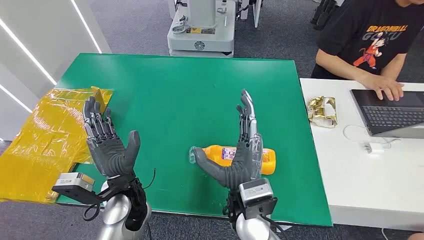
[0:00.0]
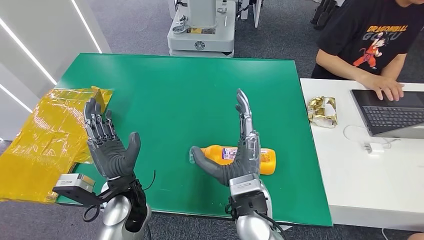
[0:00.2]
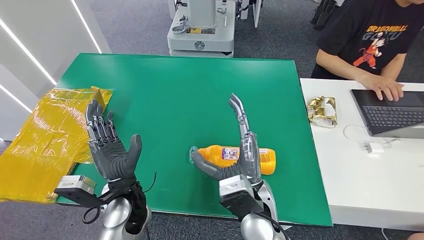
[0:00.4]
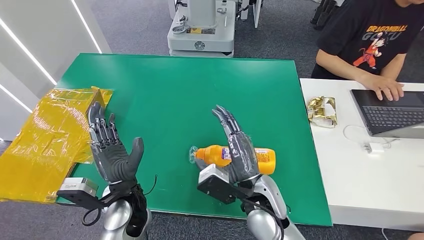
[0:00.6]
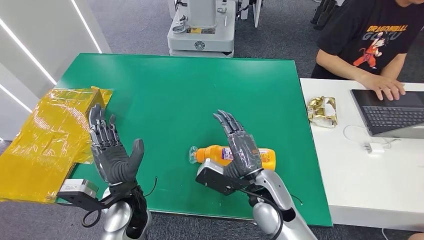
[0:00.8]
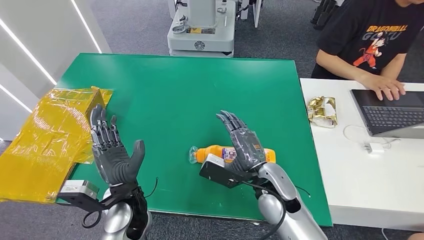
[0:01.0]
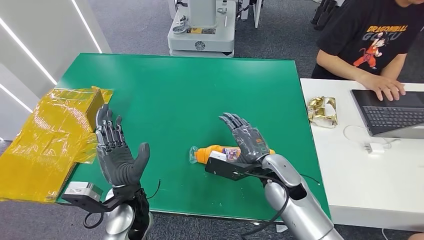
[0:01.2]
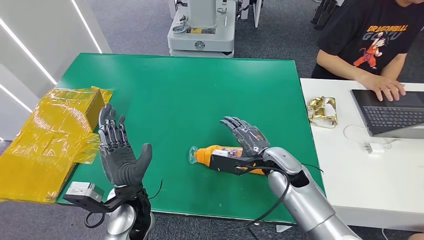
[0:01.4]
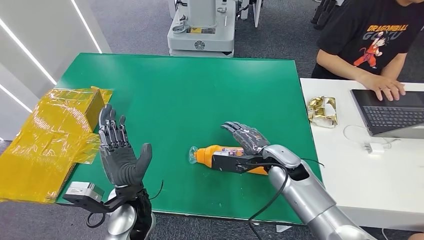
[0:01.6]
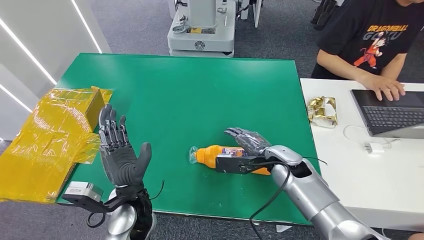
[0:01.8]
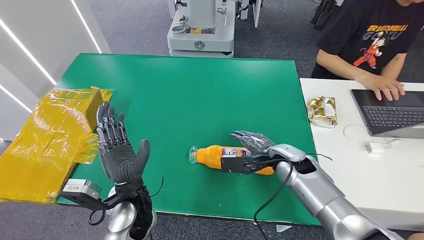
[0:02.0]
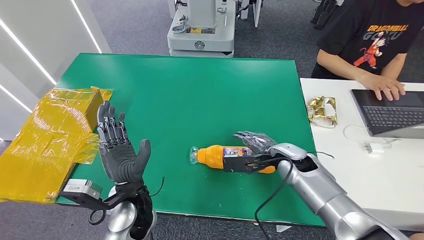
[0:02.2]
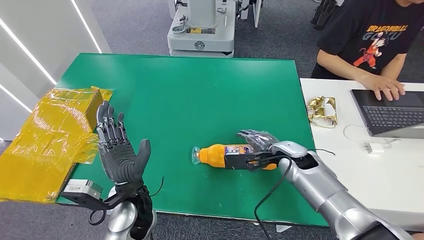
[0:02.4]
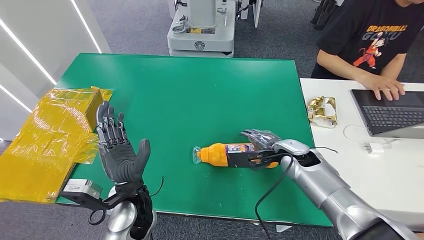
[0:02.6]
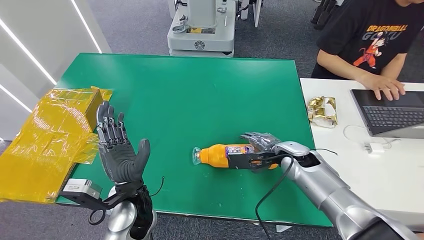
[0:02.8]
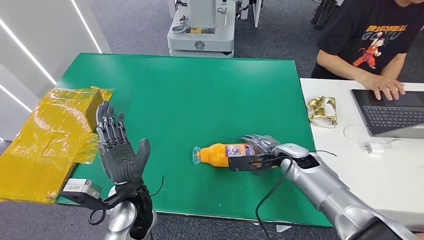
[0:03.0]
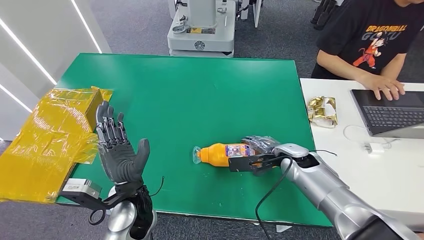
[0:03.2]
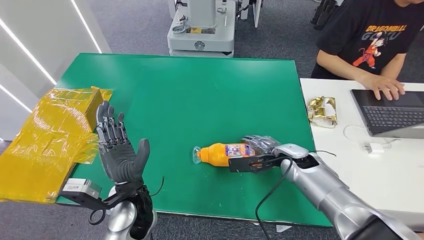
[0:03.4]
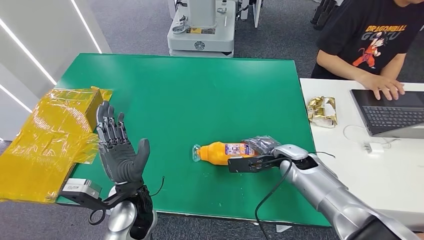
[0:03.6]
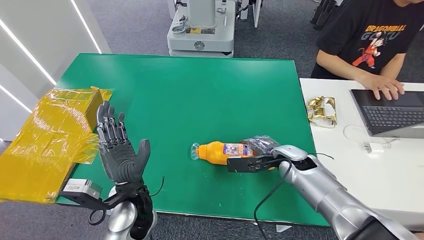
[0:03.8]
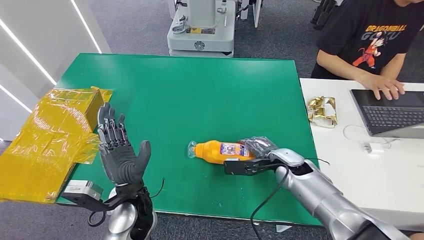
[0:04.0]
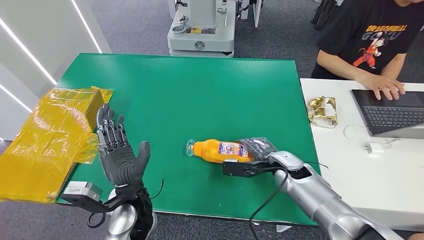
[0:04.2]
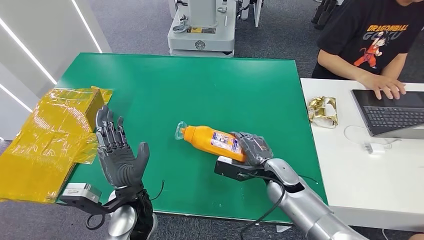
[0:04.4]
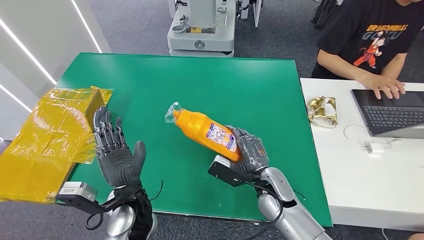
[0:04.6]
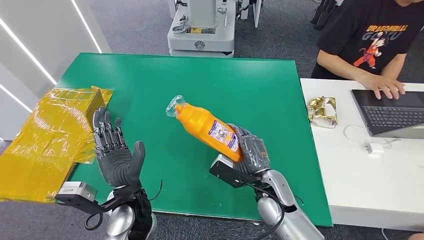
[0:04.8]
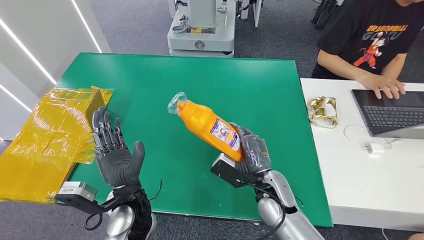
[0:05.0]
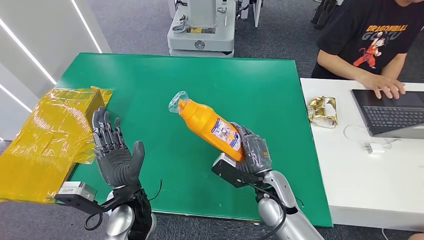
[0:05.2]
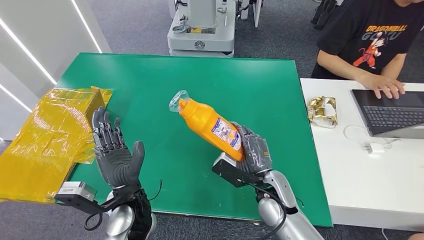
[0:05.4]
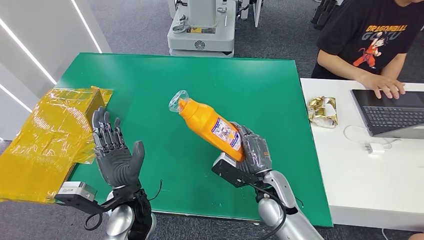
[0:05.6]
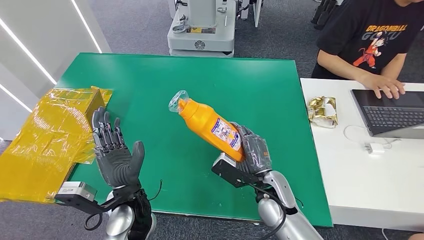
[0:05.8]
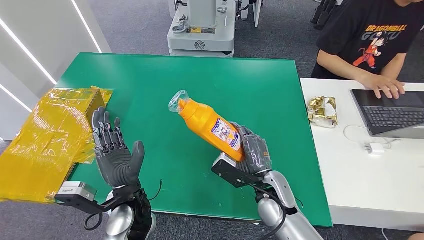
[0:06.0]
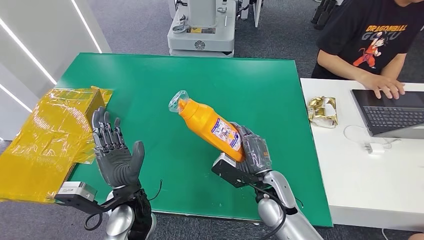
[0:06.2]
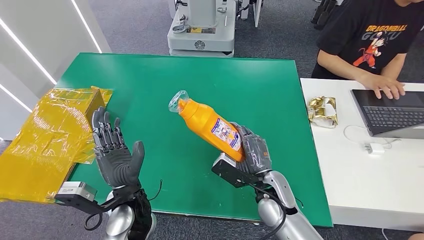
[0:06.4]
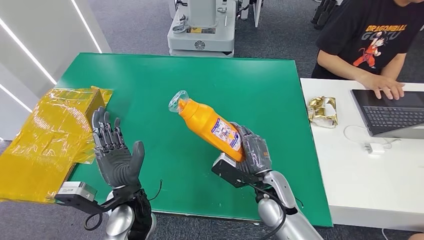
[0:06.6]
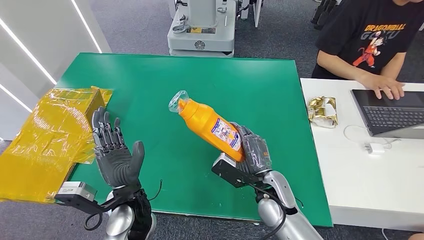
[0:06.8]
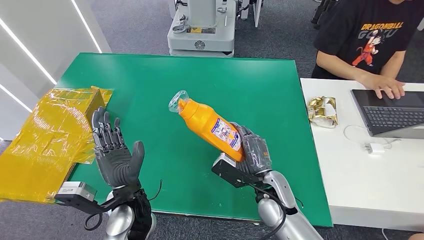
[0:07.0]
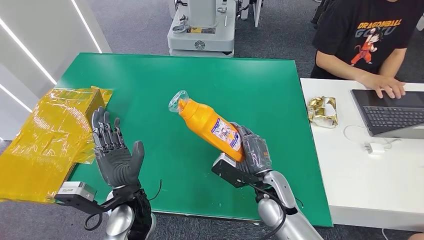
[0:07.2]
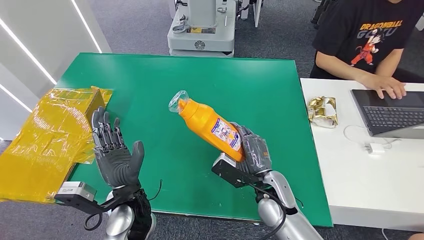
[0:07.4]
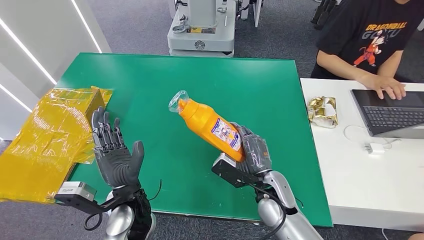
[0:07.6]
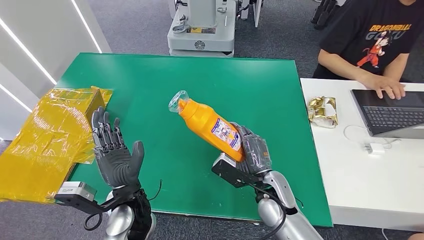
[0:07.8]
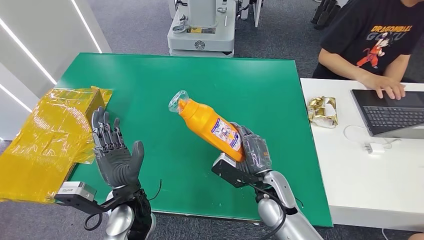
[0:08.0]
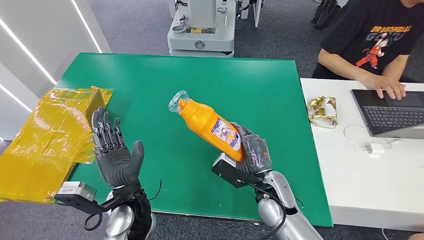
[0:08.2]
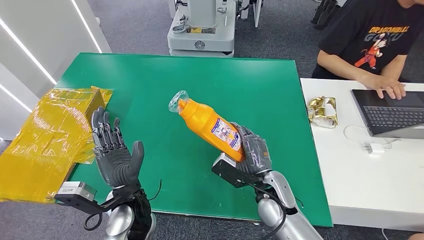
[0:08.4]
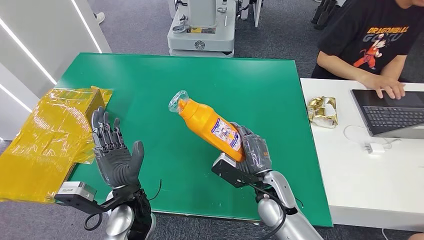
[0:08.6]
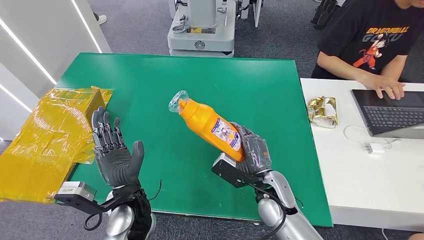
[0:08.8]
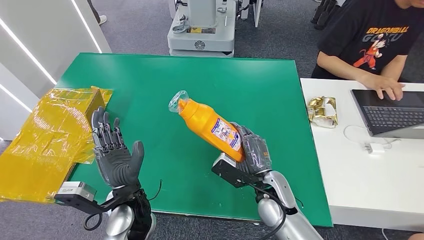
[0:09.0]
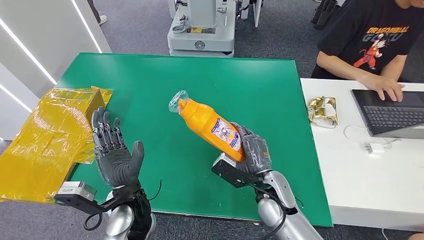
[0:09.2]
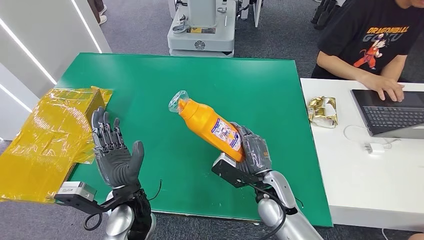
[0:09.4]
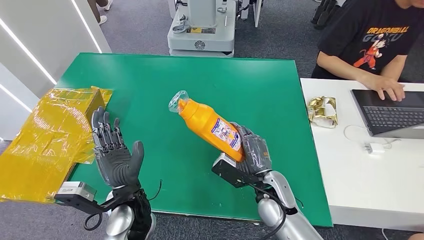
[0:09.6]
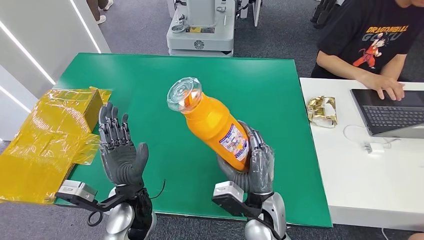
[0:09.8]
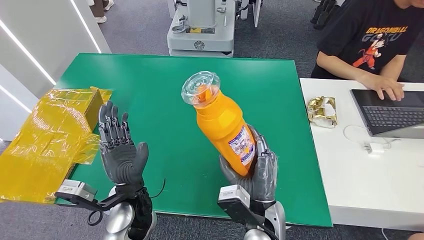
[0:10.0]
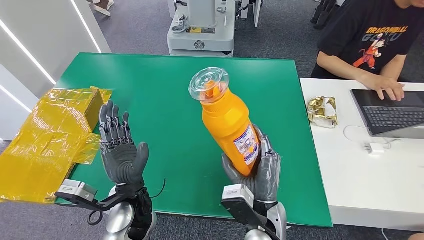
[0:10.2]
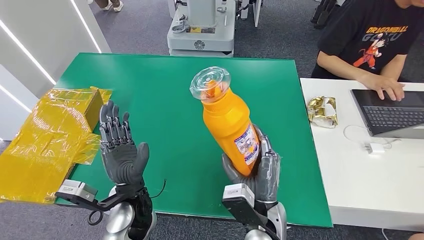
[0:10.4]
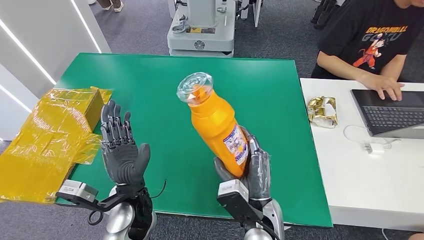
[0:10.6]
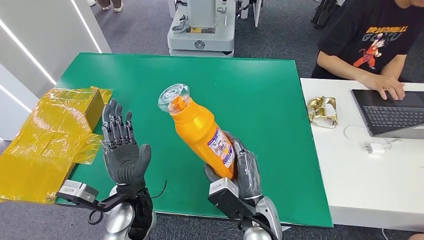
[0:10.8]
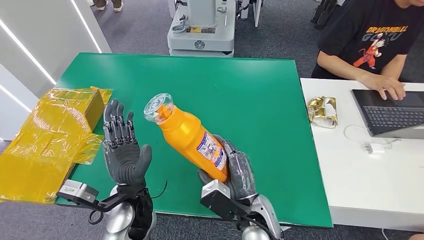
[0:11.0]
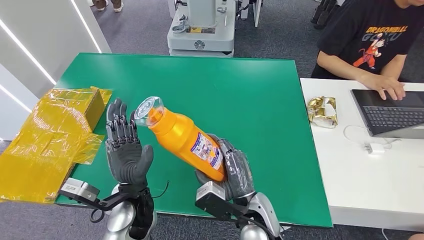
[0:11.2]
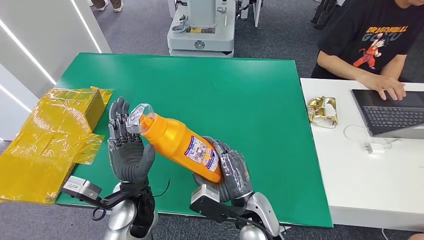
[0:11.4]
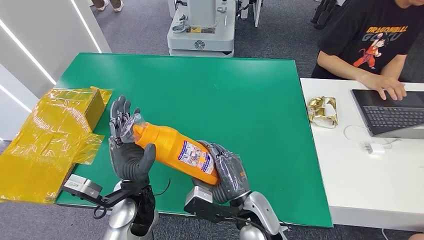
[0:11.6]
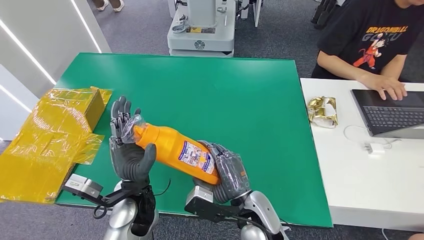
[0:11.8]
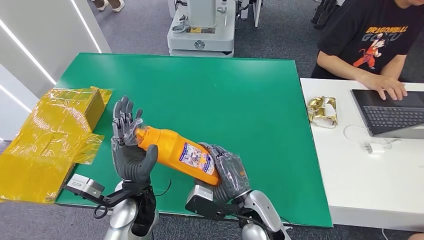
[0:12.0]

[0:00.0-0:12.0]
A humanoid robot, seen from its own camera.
Step, 0.0 to 10.2 s: Pick up the bottle from the table.
1.6 to 3.0 s: The right hand changes place by roughly 5 cm.
3.0 to 4.4 s: The right hand moves roughly 5 cm.
4.4 to 6.0 s: The right hand shifts by roughly 5 cm.
6.0 to 9.0 s: The two hands keep their place.
9.0 to 10.4 s: The right hand shifts approximately 10 cm backward.

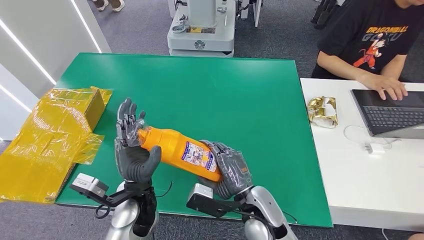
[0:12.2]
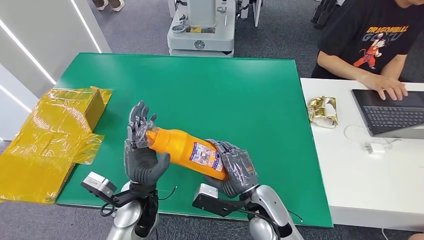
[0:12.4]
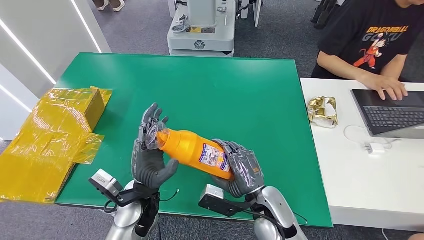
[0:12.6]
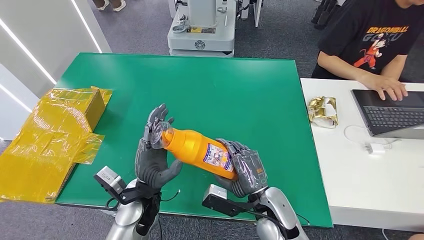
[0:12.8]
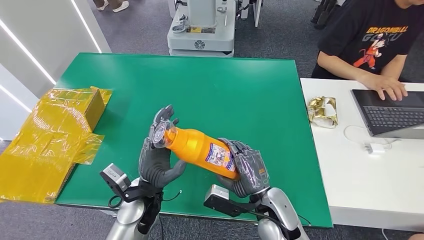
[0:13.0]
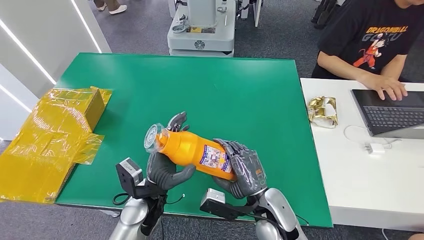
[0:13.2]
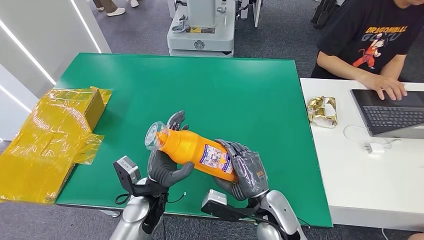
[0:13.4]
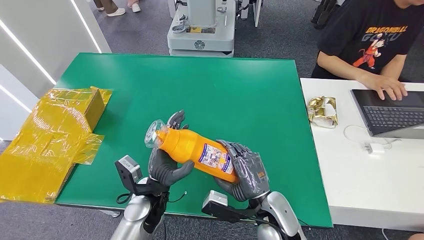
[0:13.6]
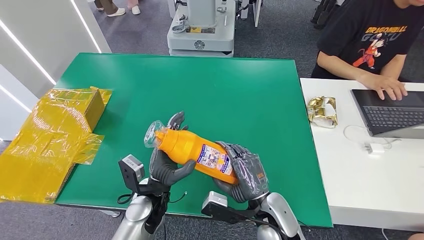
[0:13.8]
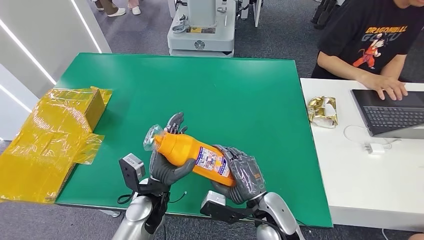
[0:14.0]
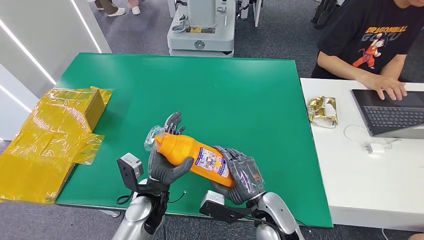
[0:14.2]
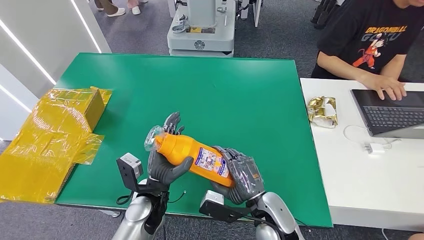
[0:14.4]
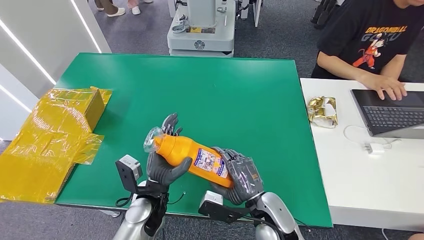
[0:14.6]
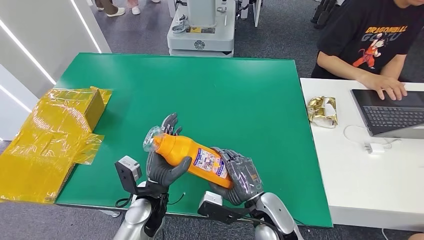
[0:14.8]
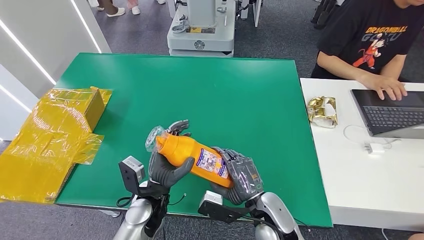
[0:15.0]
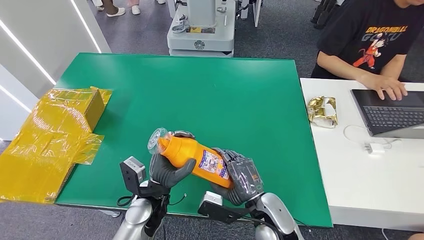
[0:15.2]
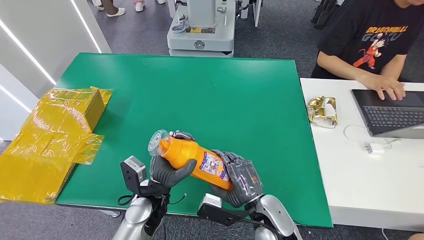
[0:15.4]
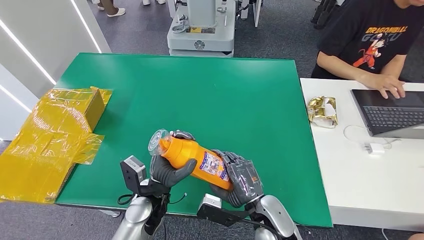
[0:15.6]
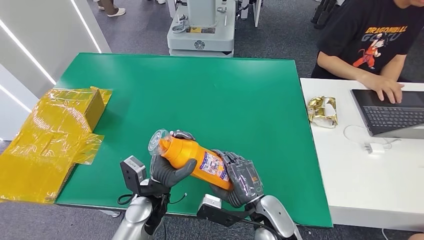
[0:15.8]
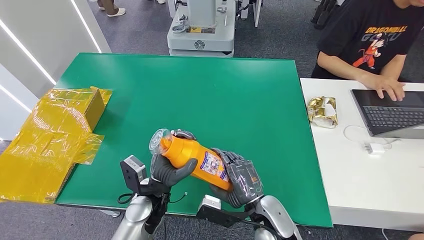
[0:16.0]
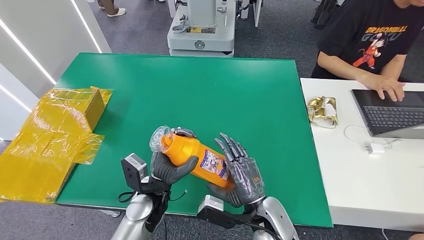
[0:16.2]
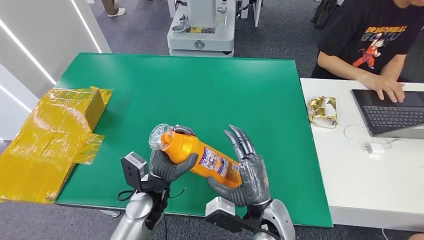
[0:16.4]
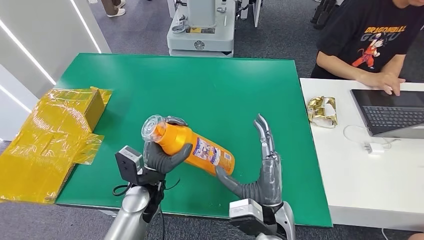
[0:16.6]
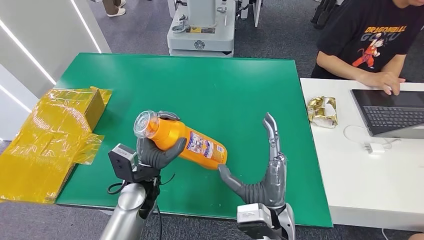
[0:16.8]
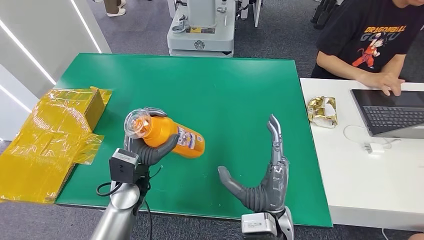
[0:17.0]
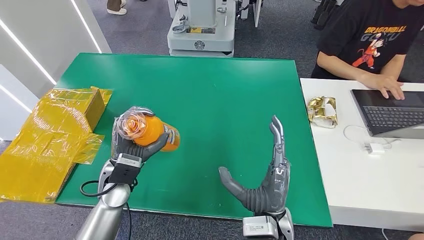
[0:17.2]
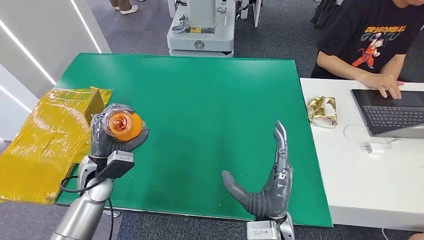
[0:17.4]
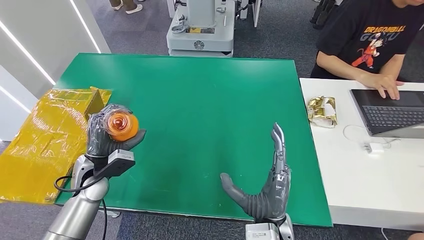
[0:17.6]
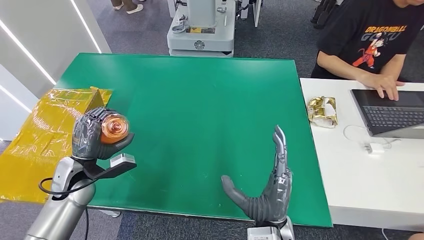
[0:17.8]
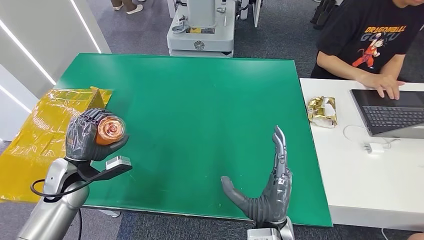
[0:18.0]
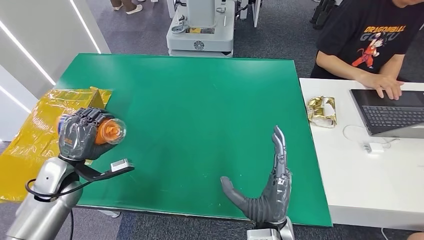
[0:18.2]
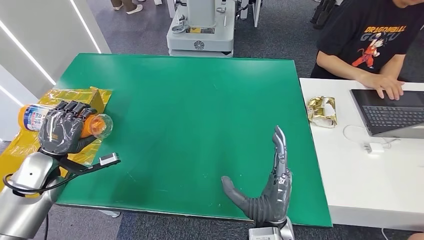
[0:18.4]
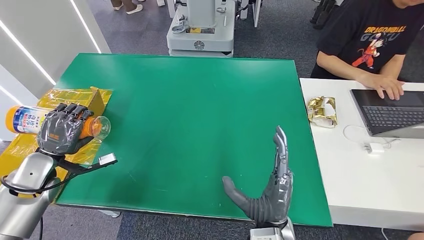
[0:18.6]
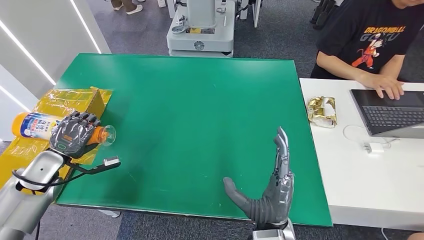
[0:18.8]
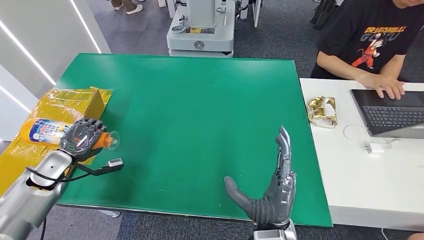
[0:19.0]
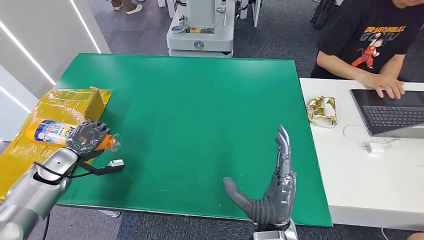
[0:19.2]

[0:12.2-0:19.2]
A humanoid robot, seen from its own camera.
13.6 to 15.0 s: The hands make only small movements.
16.4 to 17.8 s: The left hand moves to the left, about 20 cm.
17.8 to 19.2 s: The left hand goes roughly 10 cm to the left.
